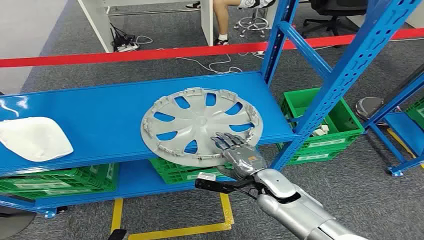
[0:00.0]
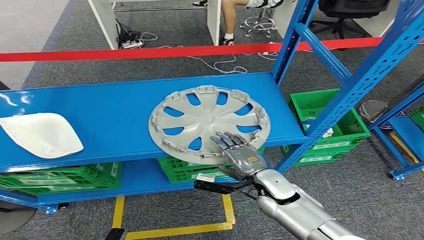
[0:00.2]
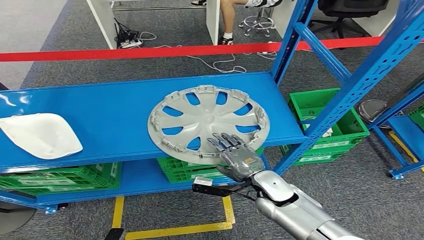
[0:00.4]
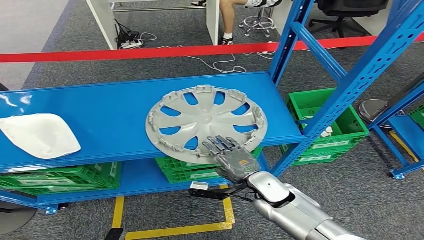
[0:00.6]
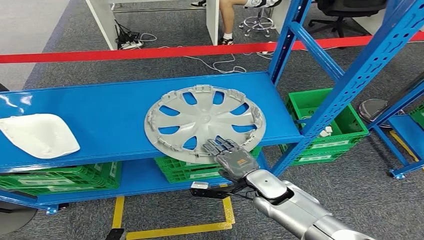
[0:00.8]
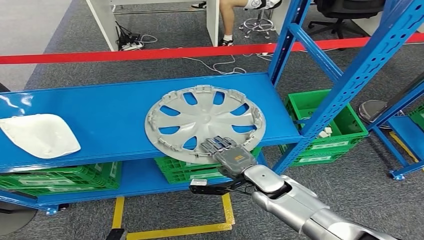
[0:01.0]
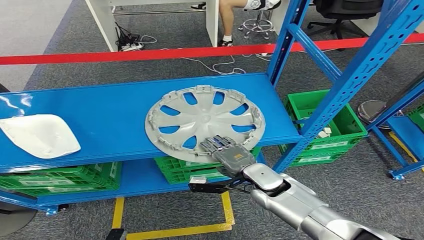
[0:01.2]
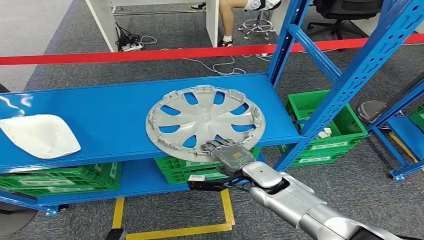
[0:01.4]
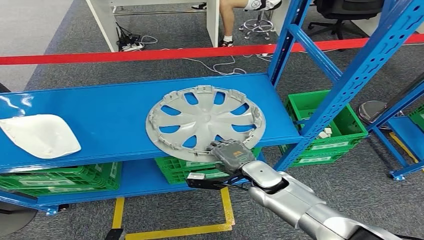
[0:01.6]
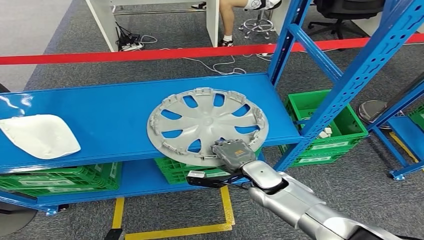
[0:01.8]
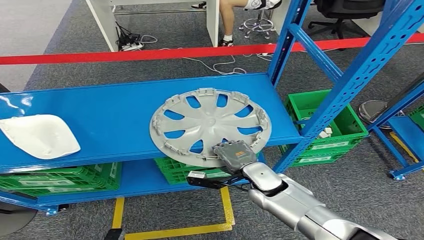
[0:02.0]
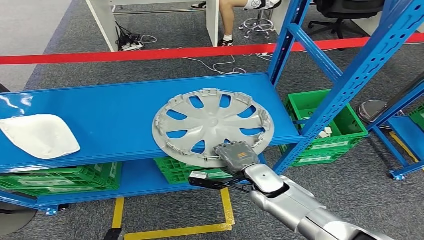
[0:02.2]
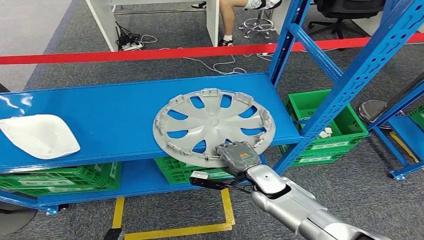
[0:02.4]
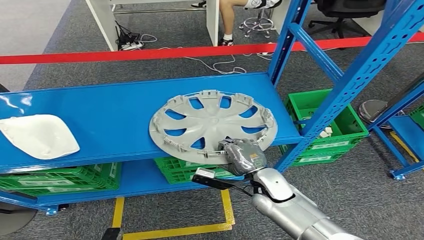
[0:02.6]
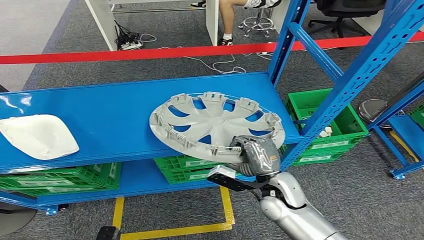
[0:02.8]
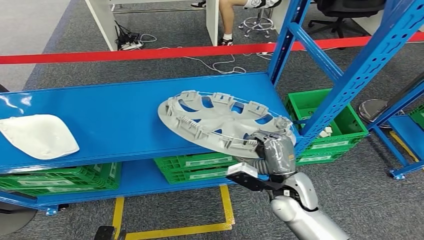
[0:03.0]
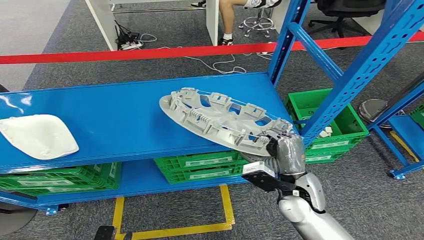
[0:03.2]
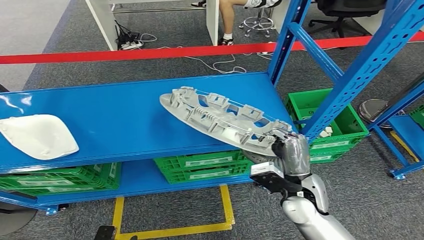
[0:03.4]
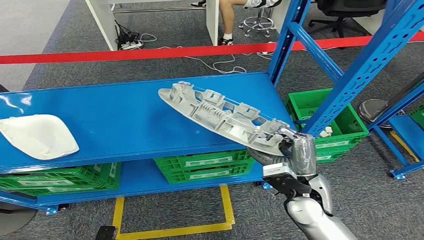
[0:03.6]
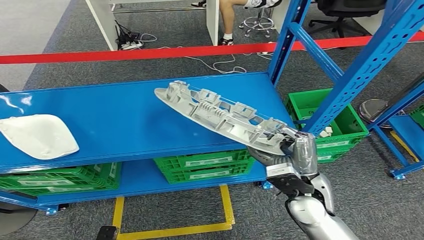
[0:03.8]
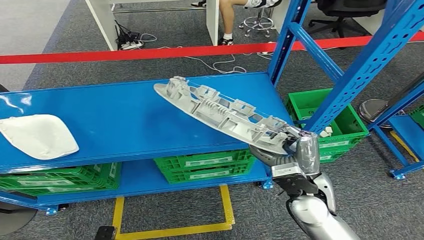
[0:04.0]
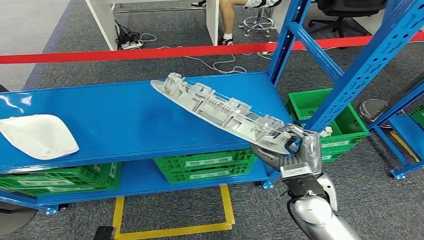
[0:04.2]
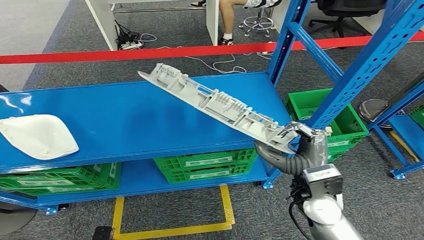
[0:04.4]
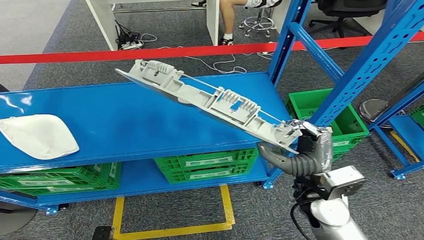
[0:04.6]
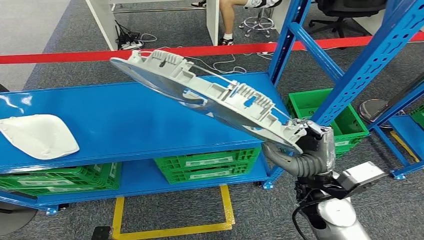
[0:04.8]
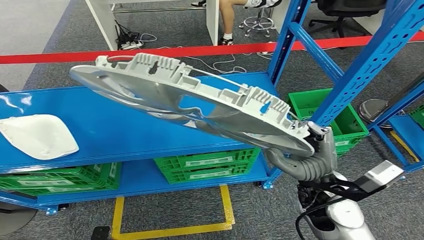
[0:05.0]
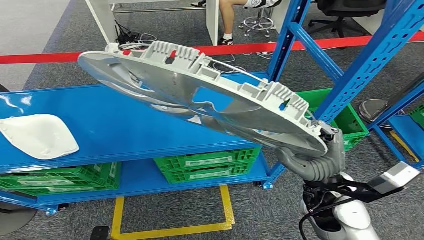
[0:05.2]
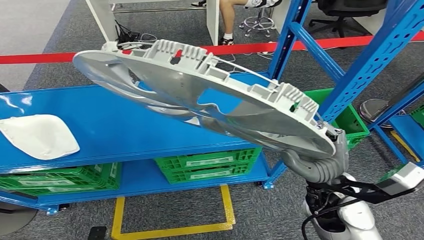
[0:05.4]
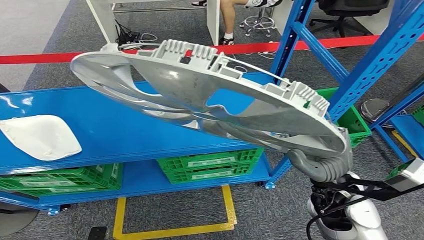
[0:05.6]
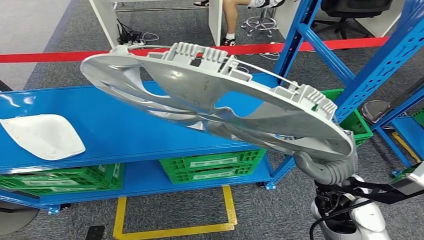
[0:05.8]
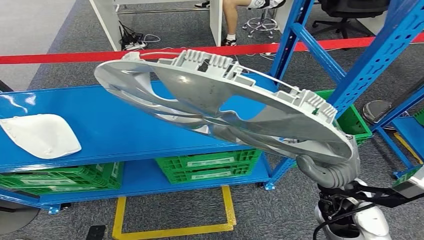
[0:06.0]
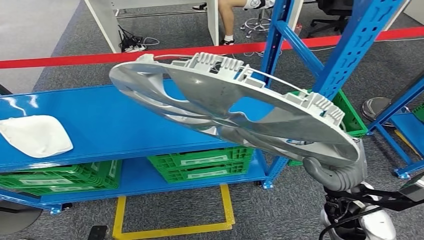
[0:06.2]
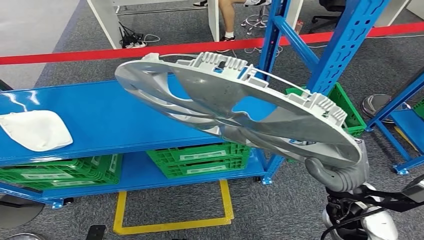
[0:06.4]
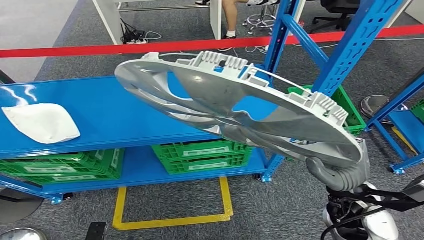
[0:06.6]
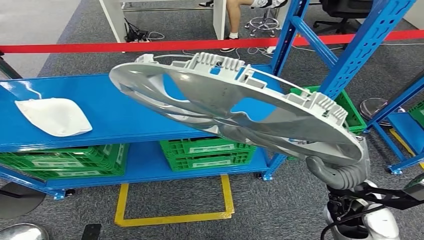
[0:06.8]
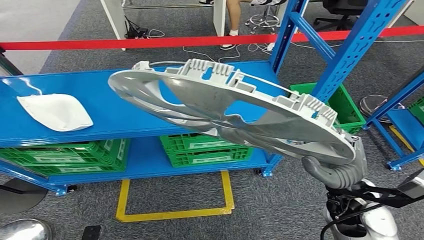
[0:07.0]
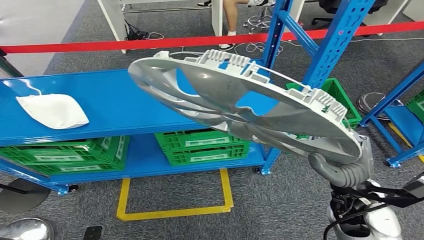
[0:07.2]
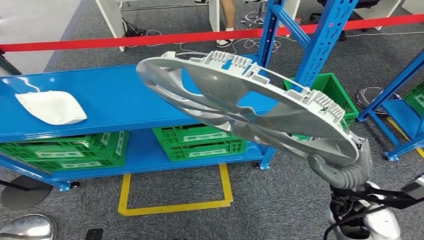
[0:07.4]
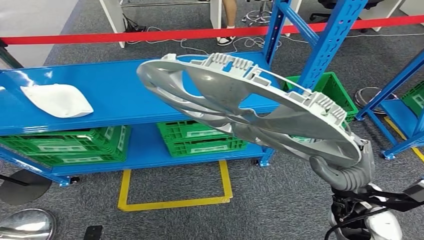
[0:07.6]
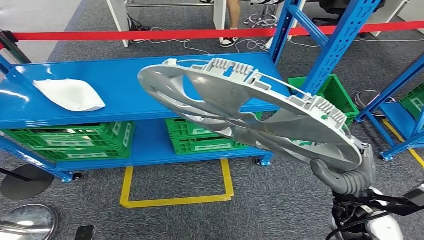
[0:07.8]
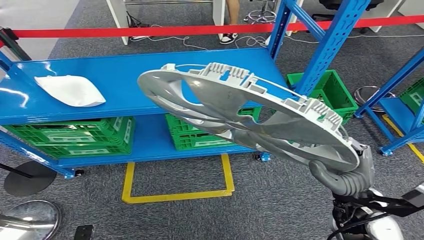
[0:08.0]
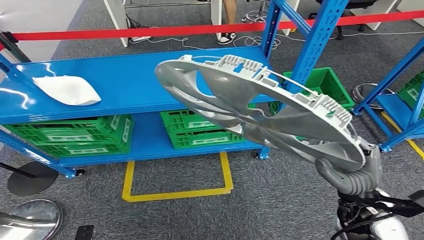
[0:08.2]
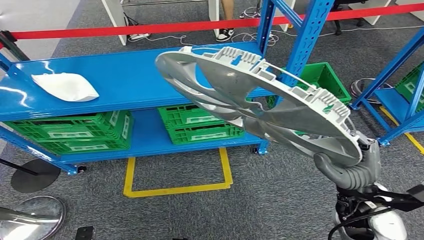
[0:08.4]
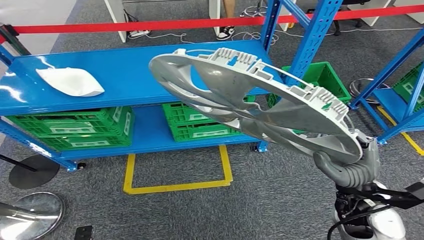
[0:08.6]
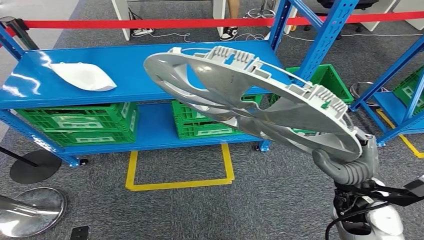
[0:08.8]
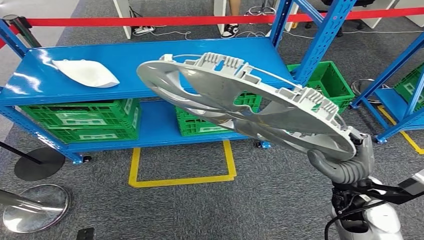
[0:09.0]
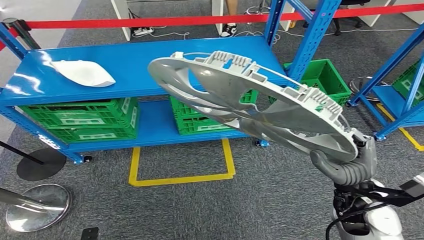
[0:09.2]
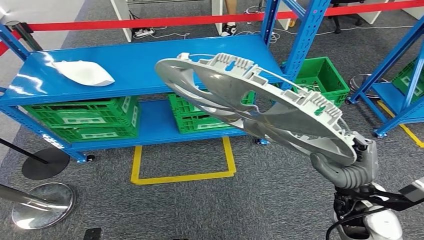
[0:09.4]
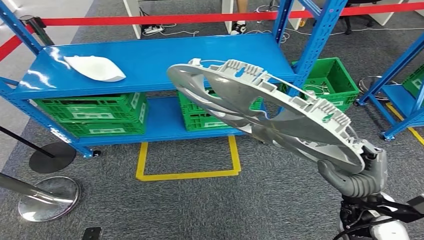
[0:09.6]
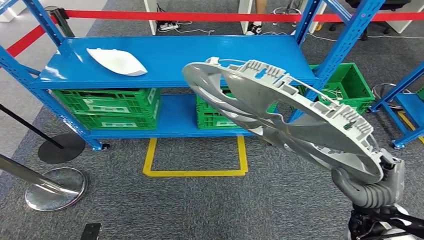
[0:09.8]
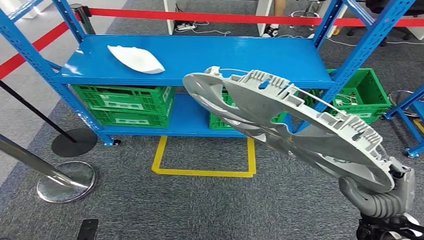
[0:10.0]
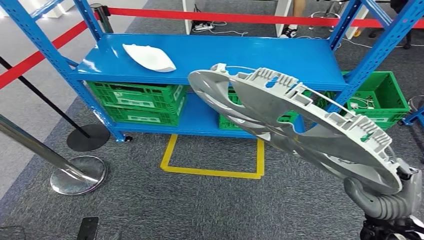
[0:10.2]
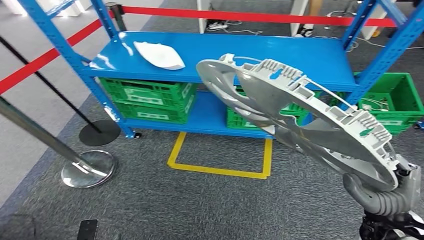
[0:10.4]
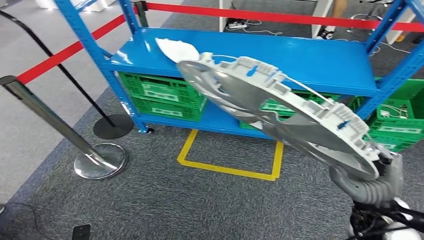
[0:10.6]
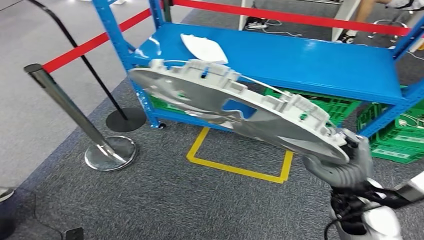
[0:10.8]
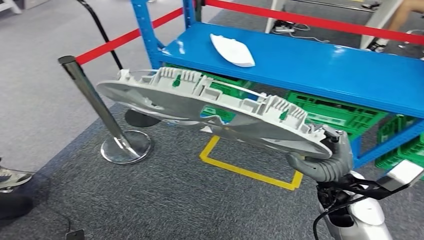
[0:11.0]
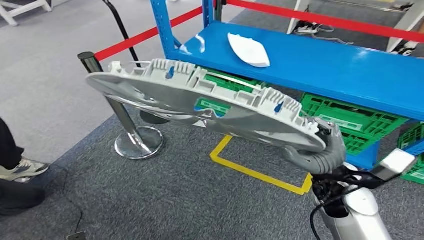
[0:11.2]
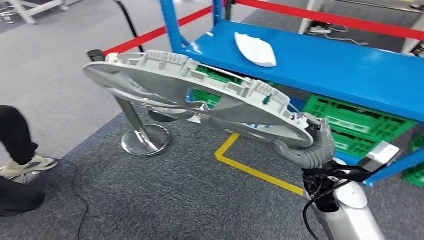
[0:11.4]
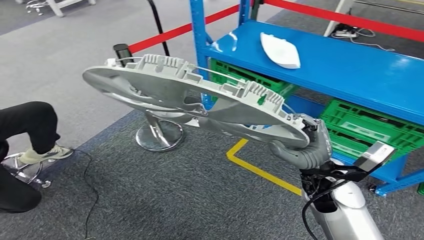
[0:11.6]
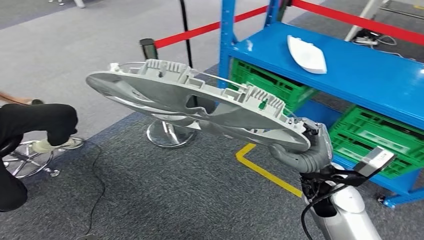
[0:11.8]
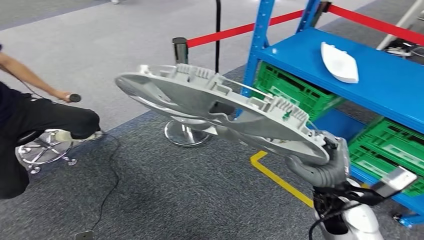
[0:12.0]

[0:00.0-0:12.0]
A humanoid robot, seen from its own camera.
Step, 0:00.0 to 0:05.6: Pick up the small component from the shelf.
0:01.6 to 0:03.0: The right hand shifts by roughly 5 cm.
0:03.0 to 0:04.4: The right hand is displaced upward by roughly 5 cm.

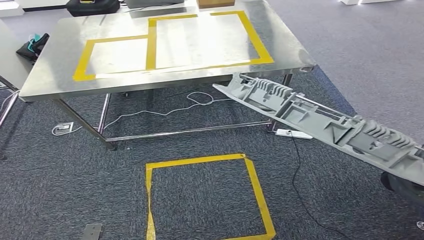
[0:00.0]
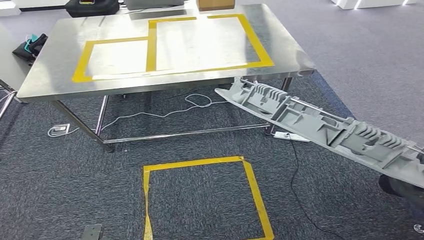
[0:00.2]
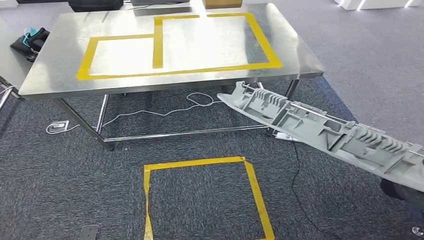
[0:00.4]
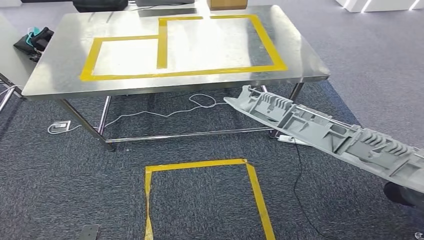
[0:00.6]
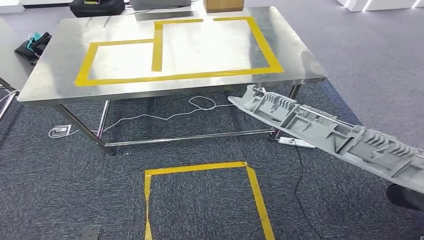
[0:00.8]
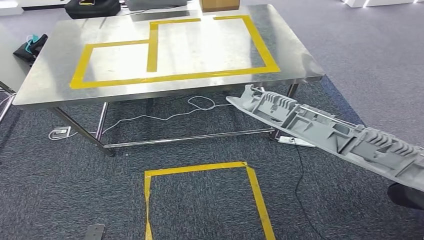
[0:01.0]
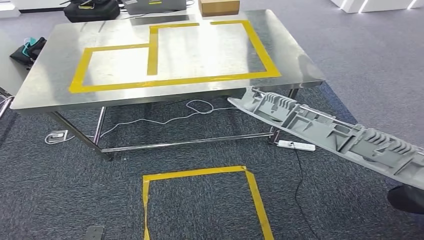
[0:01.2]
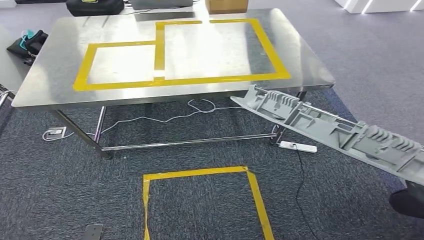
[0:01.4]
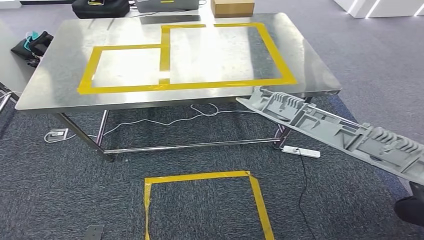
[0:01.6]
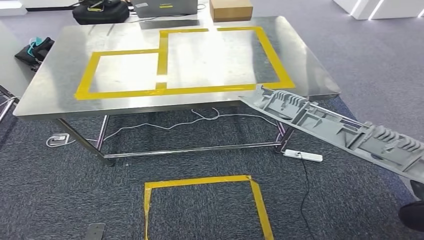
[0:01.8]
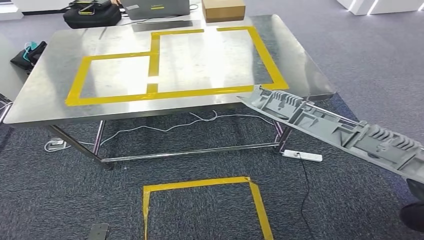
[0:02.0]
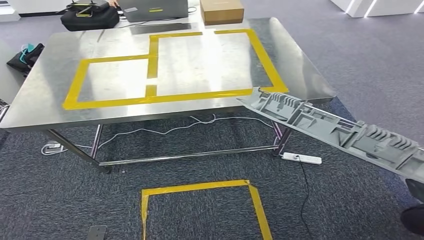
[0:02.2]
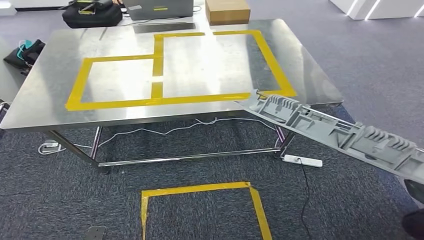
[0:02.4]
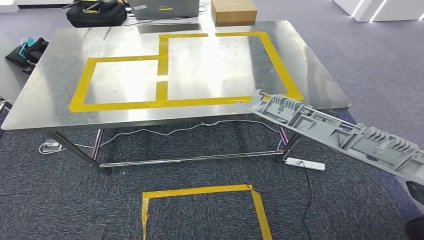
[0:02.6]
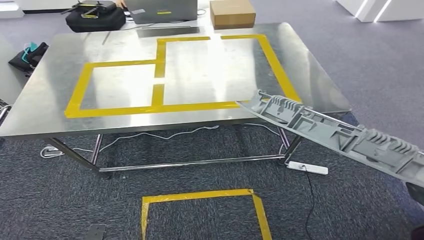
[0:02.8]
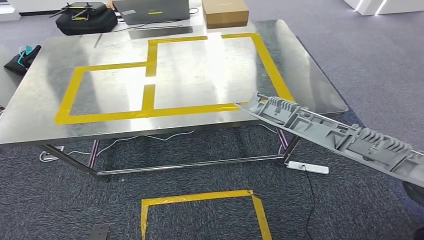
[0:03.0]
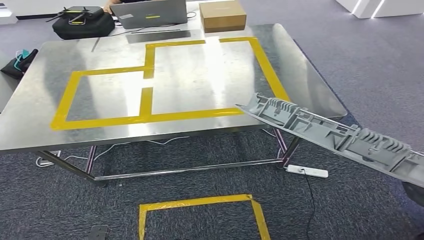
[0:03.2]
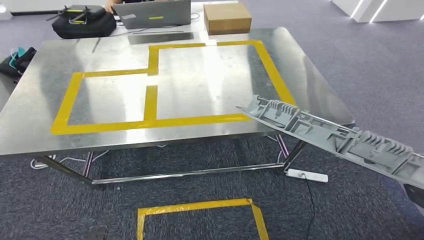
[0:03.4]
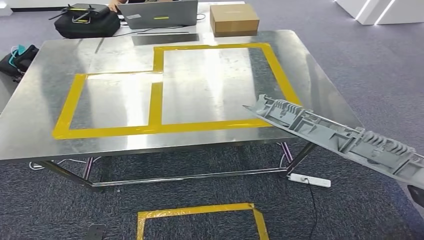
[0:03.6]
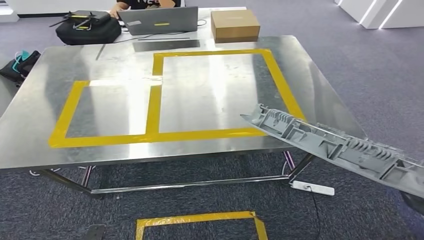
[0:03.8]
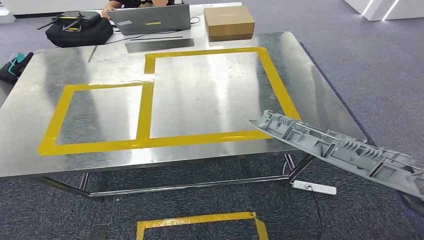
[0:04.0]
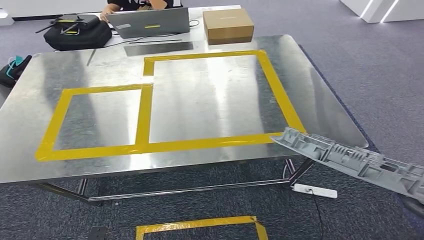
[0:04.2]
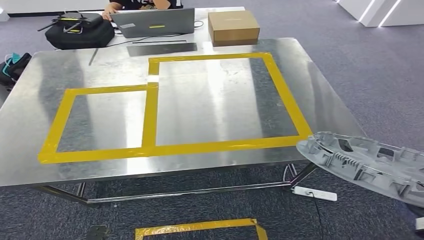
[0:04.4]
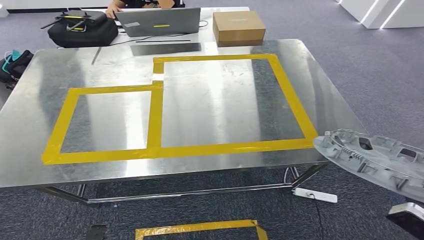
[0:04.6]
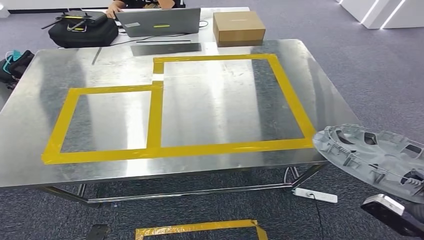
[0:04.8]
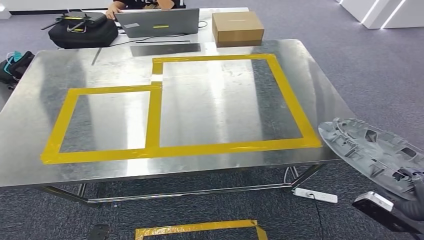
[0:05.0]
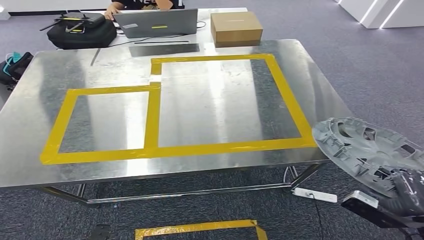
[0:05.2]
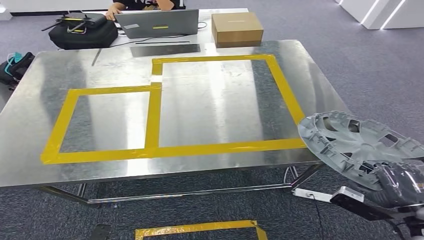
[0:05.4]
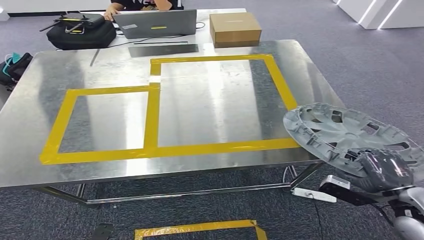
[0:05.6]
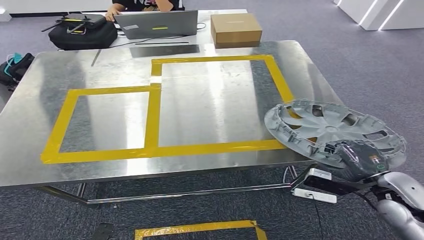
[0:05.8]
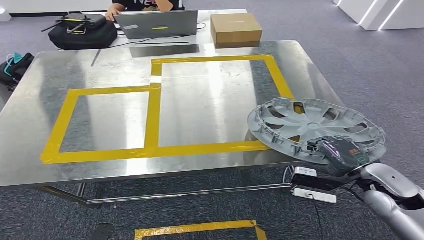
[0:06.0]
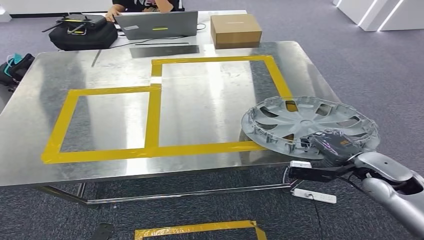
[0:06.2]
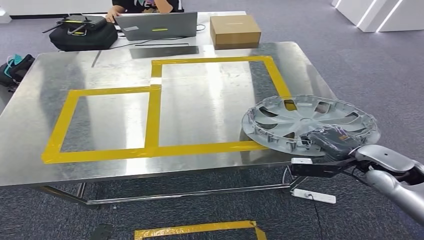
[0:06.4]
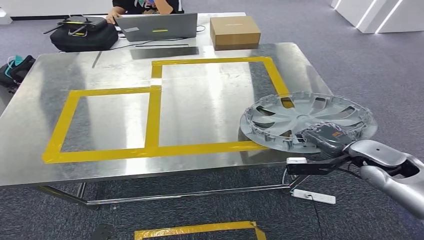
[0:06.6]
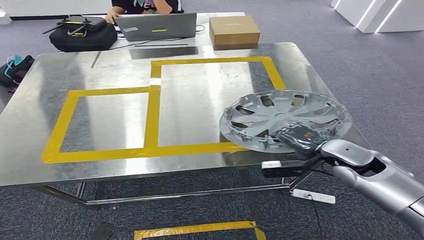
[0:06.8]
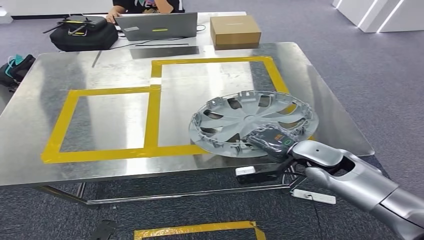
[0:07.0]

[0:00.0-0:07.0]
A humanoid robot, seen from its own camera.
Step, 0:00.0 to 0:02.8: Move the small component to the workbench.
